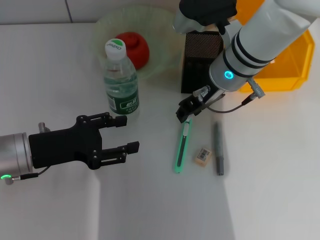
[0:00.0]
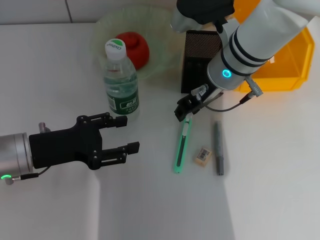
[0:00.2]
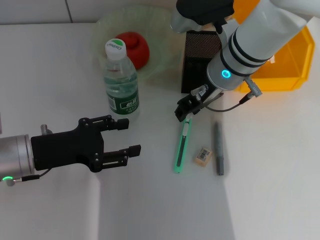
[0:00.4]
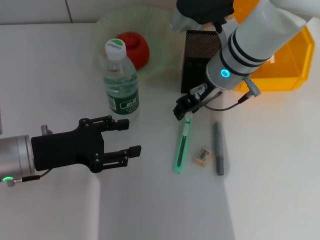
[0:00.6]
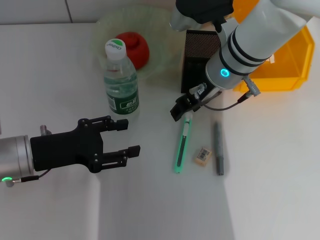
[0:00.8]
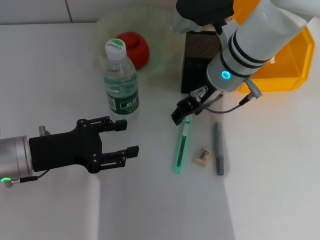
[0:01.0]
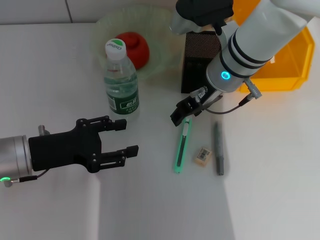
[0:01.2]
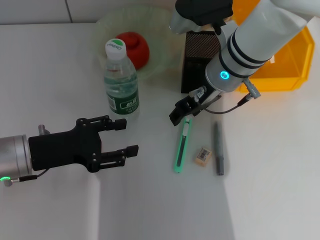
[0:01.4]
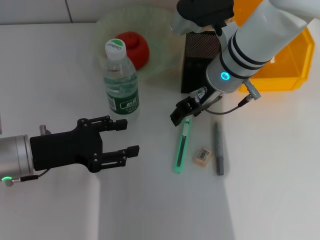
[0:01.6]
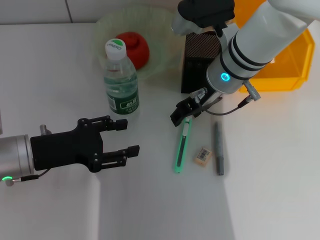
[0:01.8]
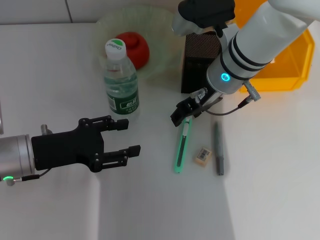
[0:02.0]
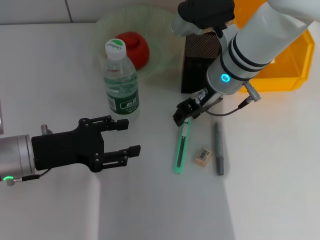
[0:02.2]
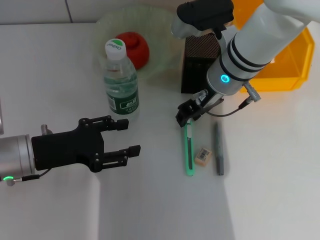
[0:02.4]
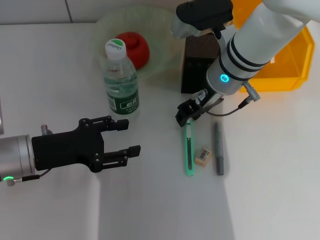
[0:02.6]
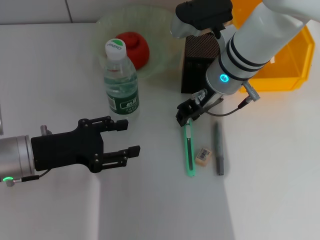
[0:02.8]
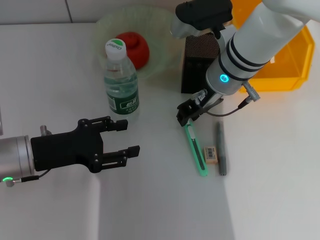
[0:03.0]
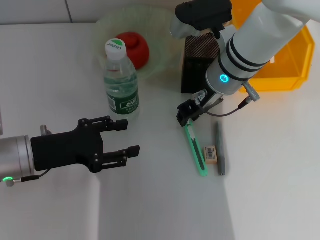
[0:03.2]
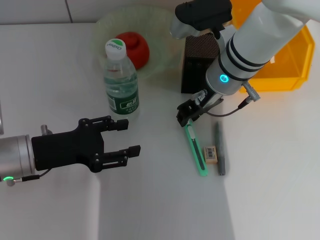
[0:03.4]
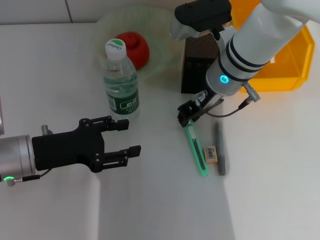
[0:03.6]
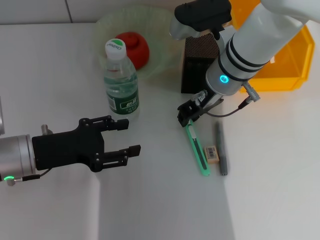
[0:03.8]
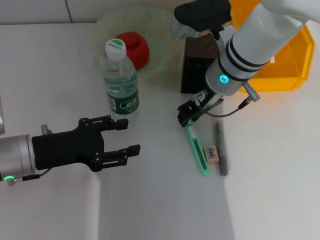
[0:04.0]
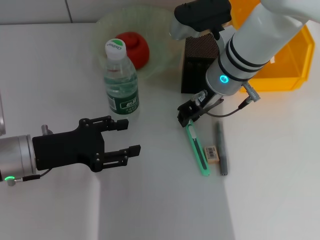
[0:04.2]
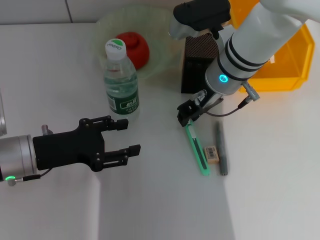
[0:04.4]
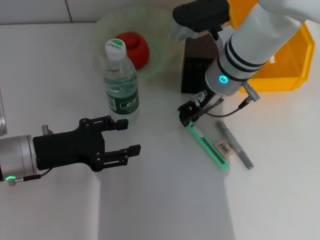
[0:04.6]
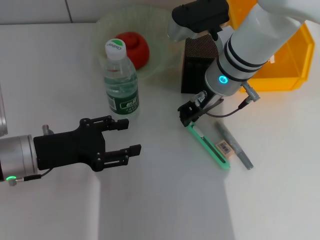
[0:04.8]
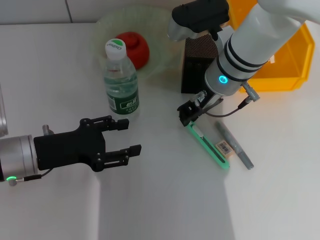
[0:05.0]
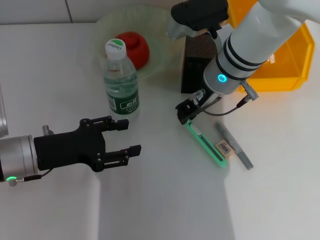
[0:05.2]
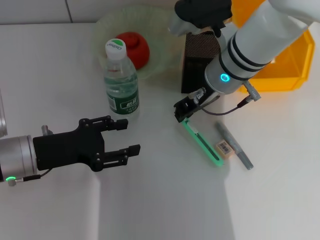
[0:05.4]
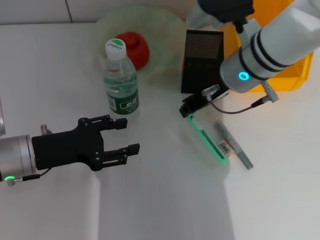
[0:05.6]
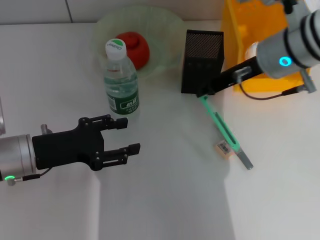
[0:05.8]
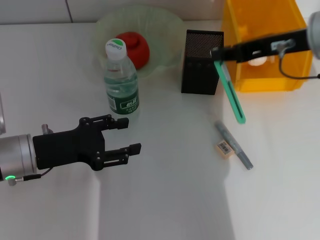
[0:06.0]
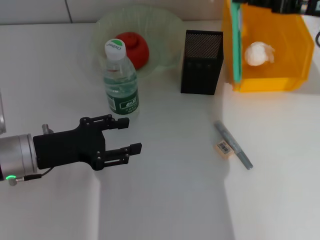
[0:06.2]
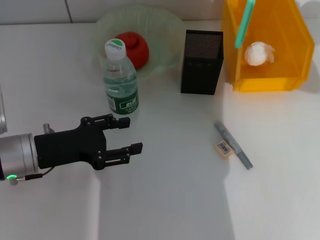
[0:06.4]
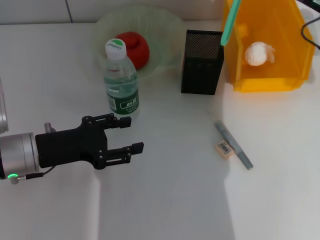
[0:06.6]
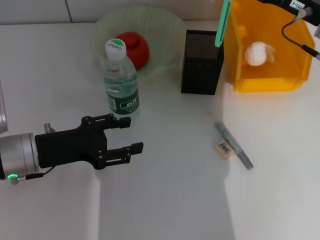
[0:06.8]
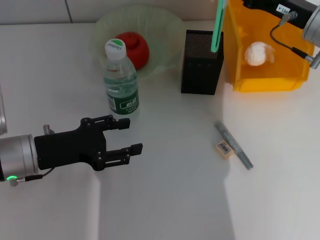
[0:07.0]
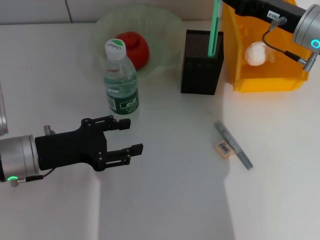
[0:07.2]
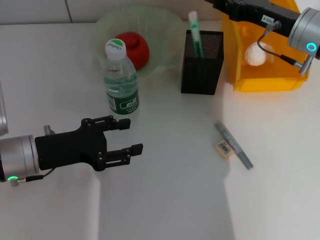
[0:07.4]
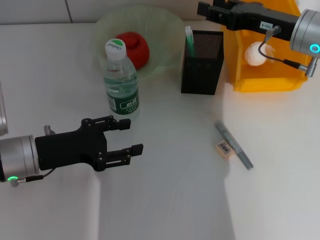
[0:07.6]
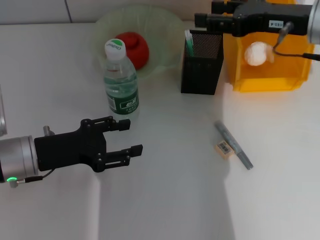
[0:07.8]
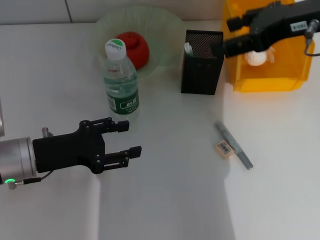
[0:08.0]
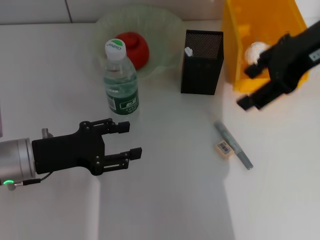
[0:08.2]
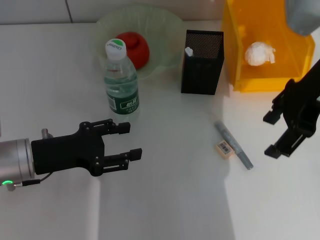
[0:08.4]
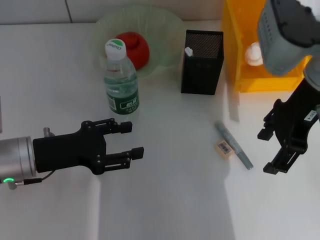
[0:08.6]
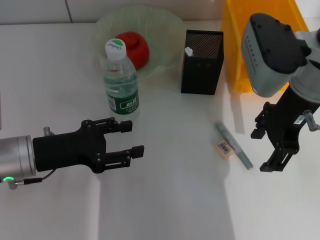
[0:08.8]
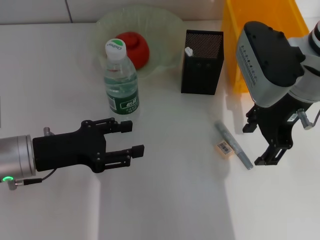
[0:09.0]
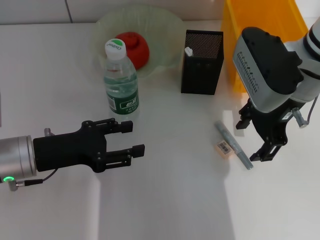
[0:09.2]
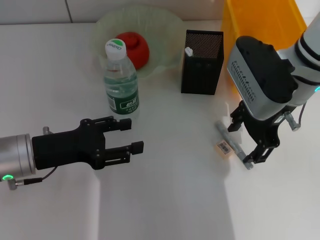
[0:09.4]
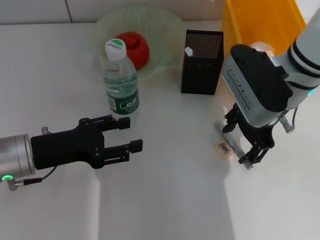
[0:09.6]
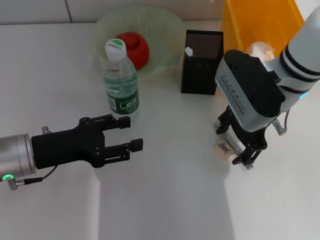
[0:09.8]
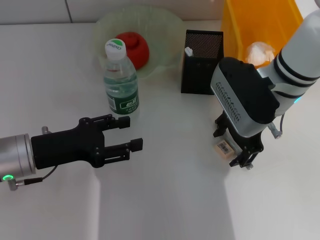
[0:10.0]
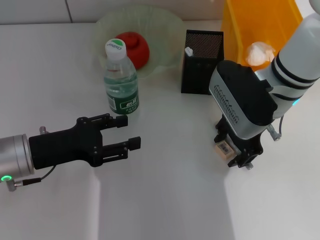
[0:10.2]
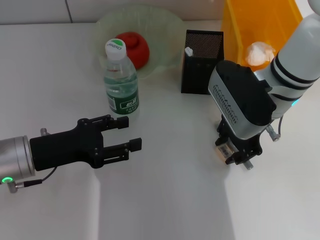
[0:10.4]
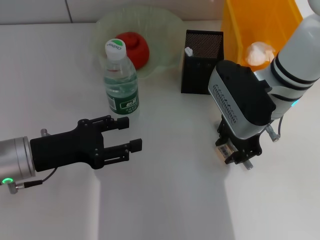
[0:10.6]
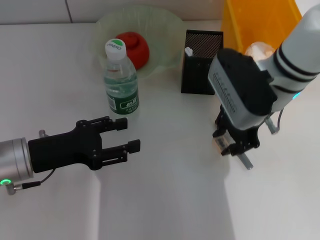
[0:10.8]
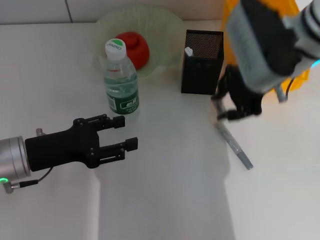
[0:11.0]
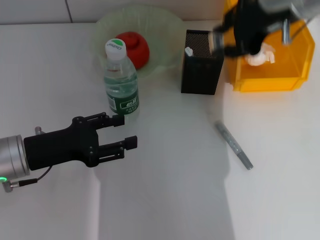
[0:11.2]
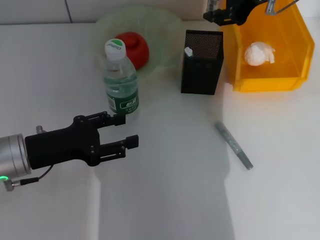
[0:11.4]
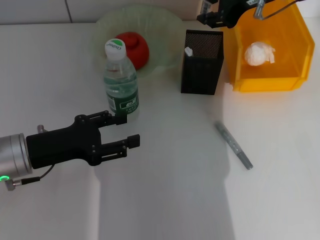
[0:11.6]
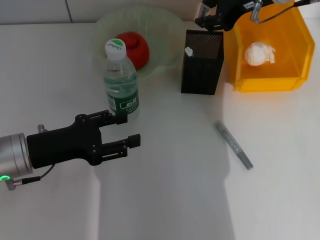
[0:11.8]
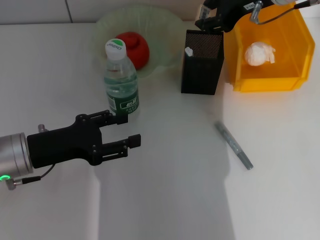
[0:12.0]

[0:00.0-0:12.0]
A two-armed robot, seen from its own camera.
Step, 0:00.0 to 0:04.8: Grab the blue utility knife with the right hand.
Step, 0:05.0 to 0:07.6: Place the blue utility knife into the pen holder with the right hand.
Step, 0:07.8 to 0:10.4: Grab the eraser with the right hand.
0:00.0 to 0:01.6: Both grippers stay about where they are.
0:01.6 to 0:03.0: The right gripper closes up.
0:03.0 to 0:04.4: Both grippers stay about where they are.
0:04.4 to 0:06.0: The right gripper is displaced to the right, upward and backward by about 15 cm.
0:06.0 to 0:07.6: The right gripper travels downward by some 5 cm.
0:07.6 to 0:09.0: The right gripper travels to the left by about 5 cm, travels upward and back again, about 10 cm each way, and opens its fingers.
0:09.0 to 0:10.4: The right gripper ends up about 5 cm from where it was.
0:10.4 to 0:12.0: The right gripper moves upward and forward, some 10 cm.

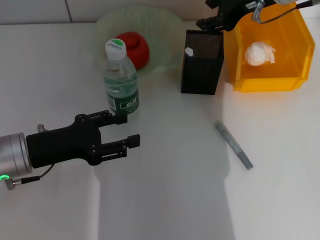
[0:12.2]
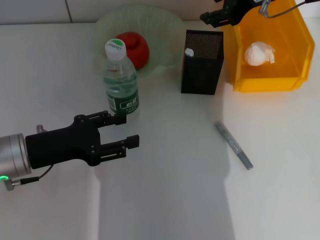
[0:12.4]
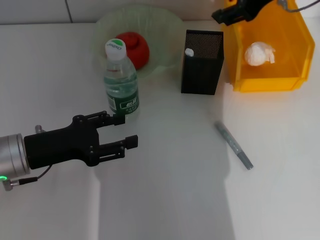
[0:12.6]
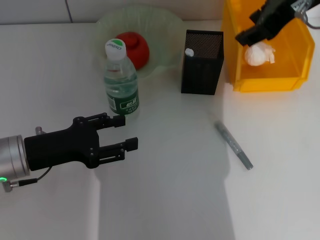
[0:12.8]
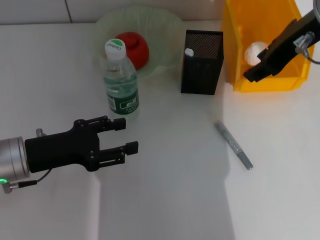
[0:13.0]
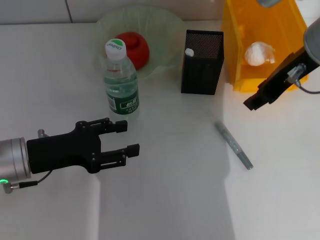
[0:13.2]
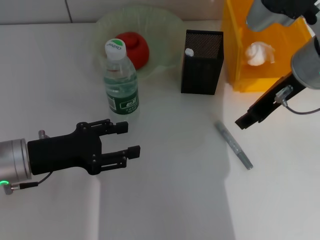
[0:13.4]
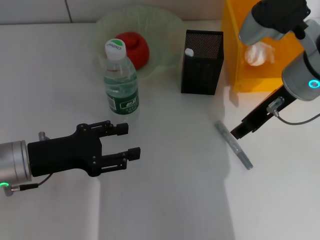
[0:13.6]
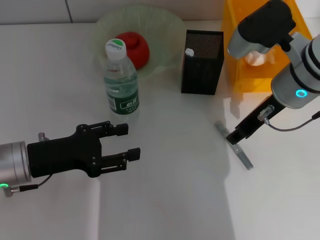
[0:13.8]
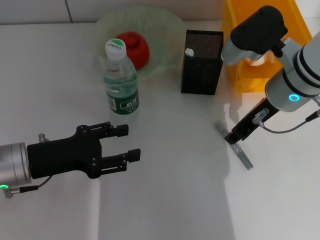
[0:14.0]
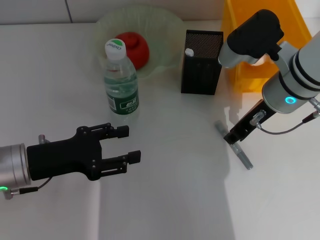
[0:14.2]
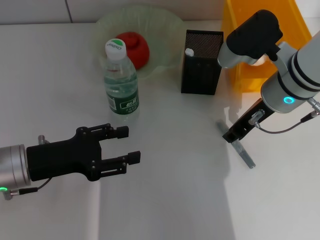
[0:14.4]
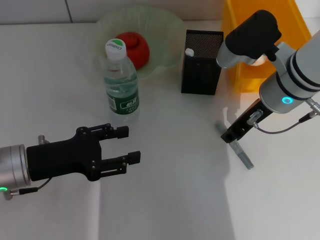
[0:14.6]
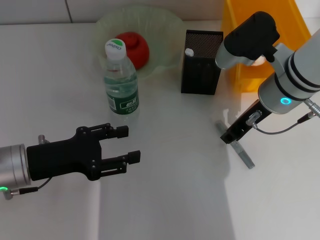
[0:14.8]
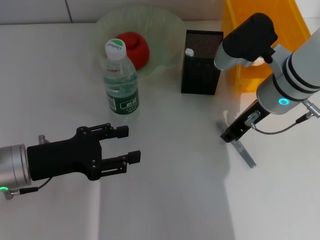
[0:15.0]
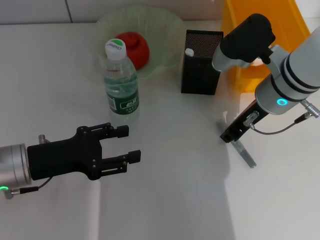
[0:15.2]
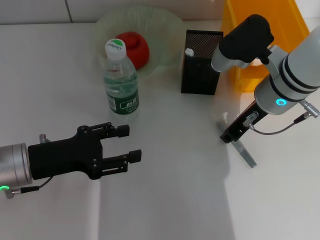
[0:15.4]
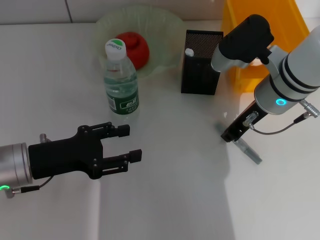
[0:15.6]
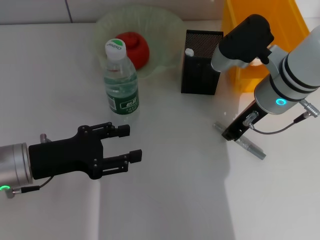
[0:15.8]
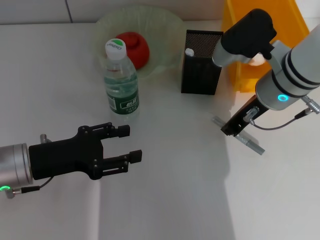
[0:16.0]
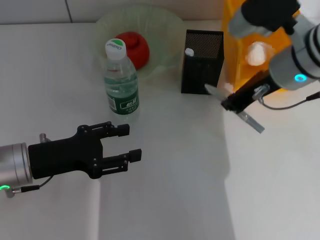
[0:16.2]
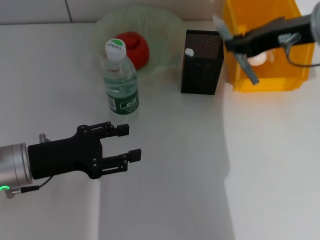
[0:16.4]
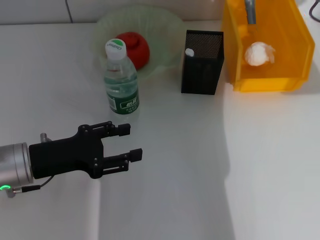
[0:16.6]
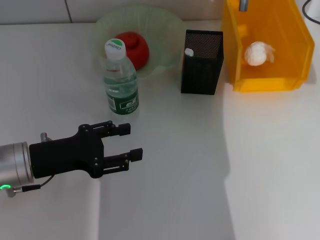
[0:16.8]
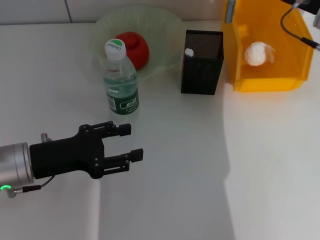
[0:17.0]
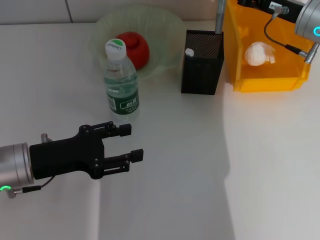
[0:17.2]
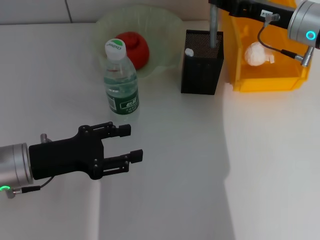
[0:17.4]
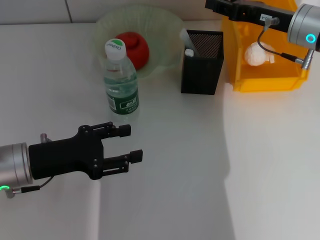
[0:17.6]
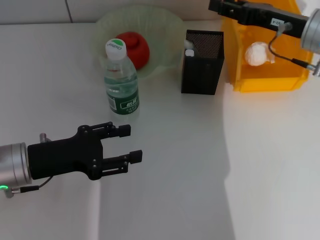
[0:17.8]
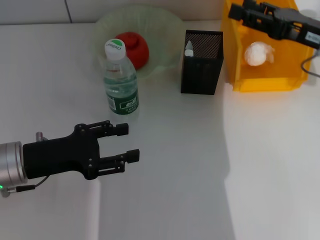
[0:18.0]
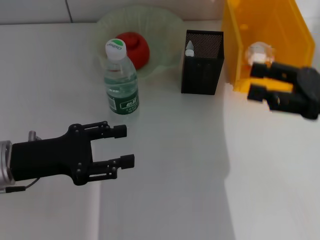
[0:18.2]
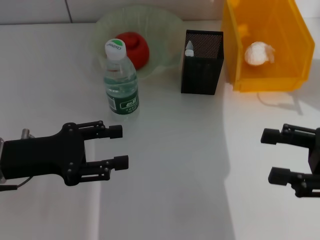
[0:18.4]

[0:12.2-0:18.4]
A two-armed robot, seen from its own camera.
Step, 0:12.6 to 0:15.6: Grab the gray glue with the right hand.
Step, 0:15.8 to 0:17.6: Place the gray glue into the pen holder with the right hand.
0:12.2 to 0:13.8: The right gripper shifts roughly 10 cm downward and backward.
0:13.8 to 0:15.4: The grippers make only small movements.
0:15.4 to 0:16.8: The right gripper shifts approximately 15 cm to the right and upward.
0:16.8 to 0:18.4: The right gripper is displaced backward and downward by about 20 cm, and opens.
